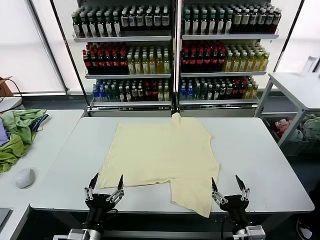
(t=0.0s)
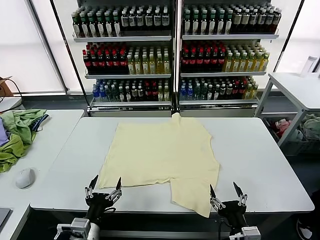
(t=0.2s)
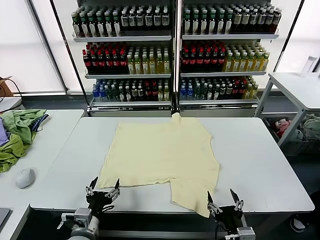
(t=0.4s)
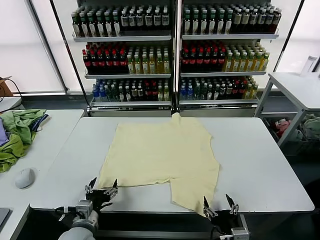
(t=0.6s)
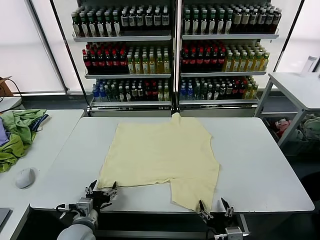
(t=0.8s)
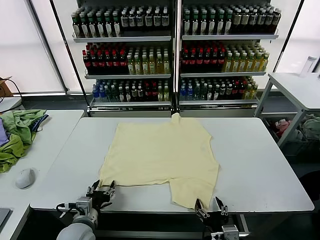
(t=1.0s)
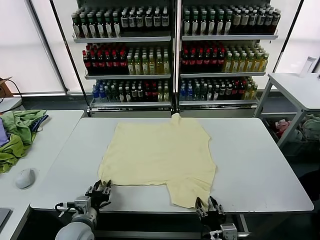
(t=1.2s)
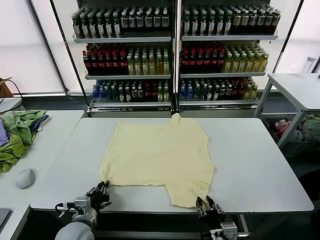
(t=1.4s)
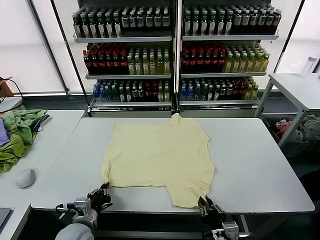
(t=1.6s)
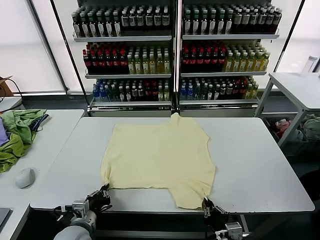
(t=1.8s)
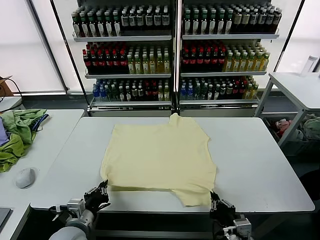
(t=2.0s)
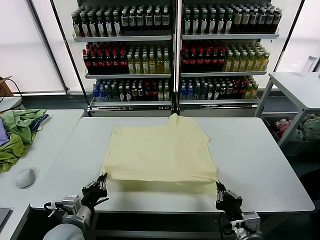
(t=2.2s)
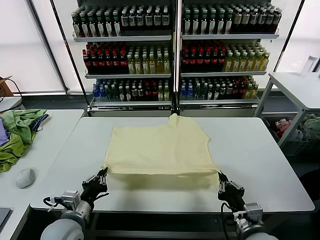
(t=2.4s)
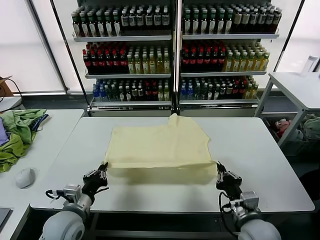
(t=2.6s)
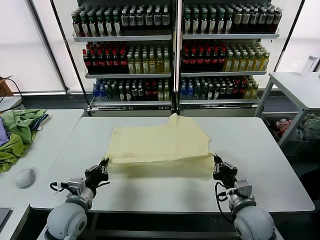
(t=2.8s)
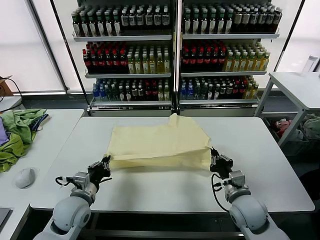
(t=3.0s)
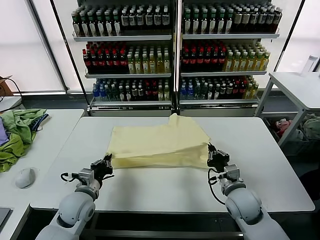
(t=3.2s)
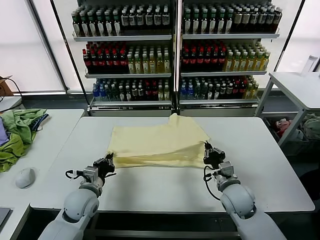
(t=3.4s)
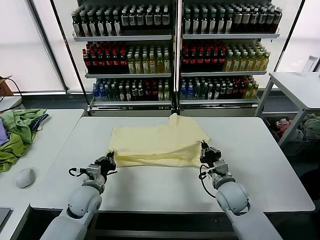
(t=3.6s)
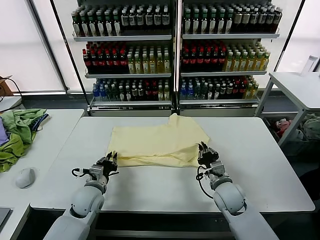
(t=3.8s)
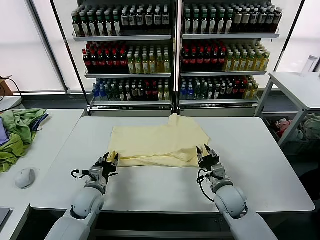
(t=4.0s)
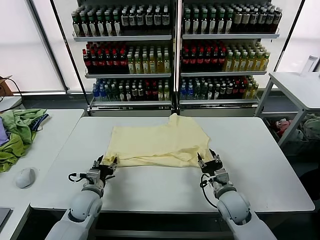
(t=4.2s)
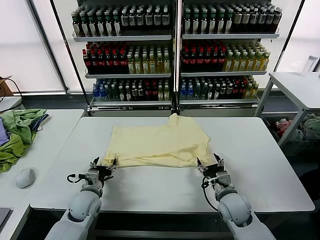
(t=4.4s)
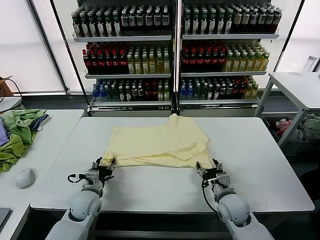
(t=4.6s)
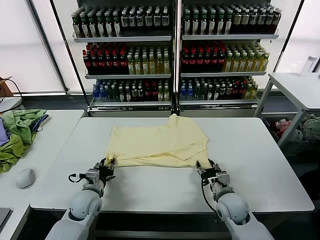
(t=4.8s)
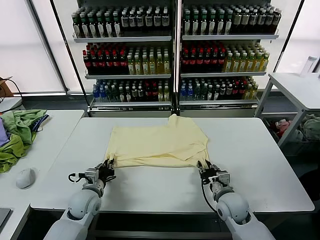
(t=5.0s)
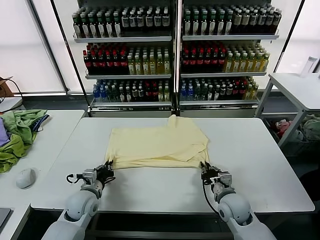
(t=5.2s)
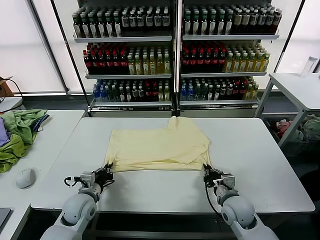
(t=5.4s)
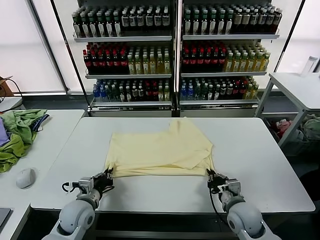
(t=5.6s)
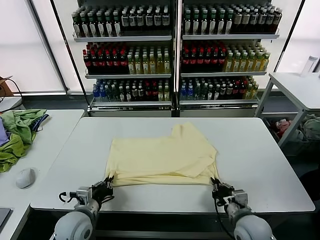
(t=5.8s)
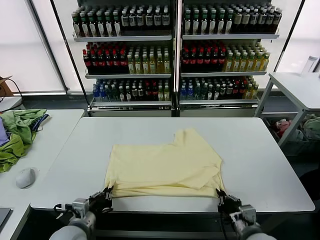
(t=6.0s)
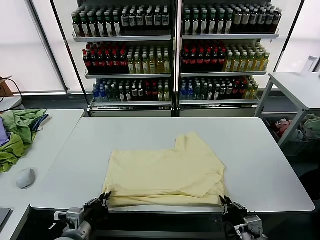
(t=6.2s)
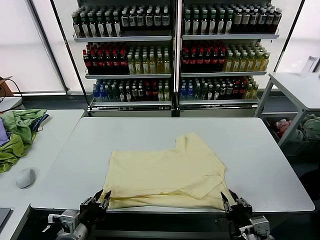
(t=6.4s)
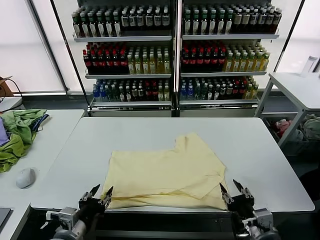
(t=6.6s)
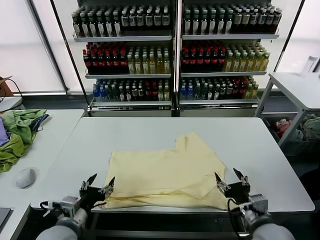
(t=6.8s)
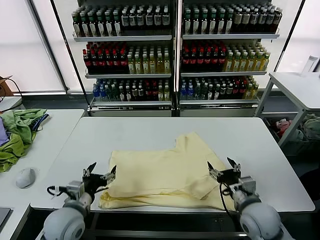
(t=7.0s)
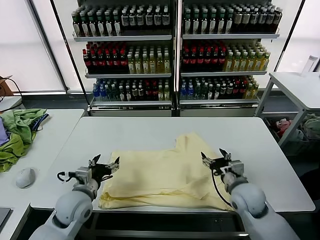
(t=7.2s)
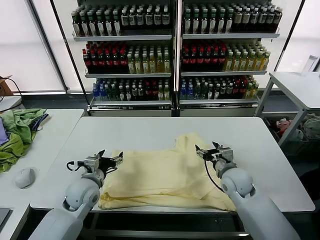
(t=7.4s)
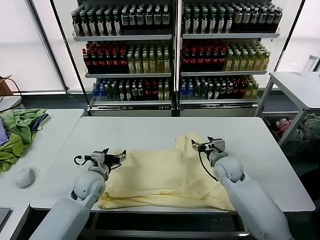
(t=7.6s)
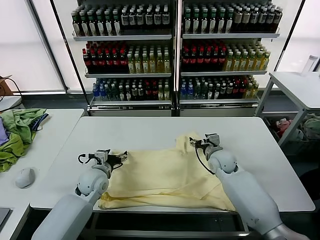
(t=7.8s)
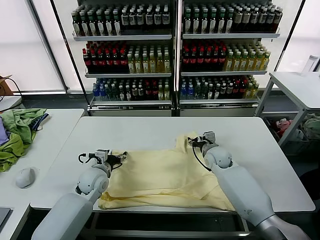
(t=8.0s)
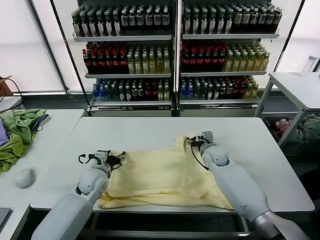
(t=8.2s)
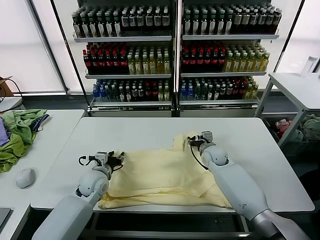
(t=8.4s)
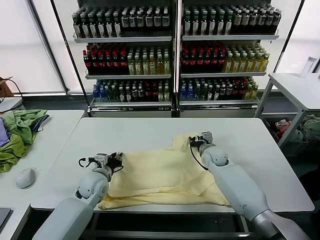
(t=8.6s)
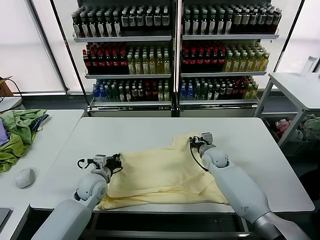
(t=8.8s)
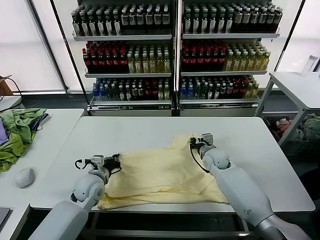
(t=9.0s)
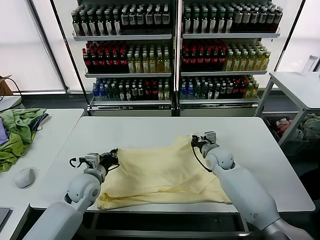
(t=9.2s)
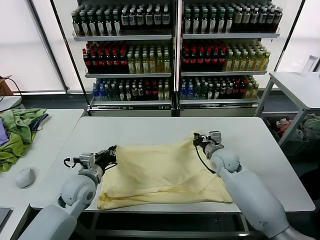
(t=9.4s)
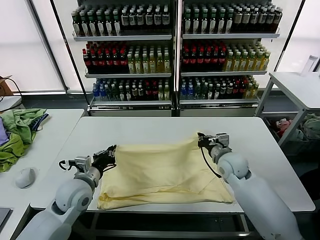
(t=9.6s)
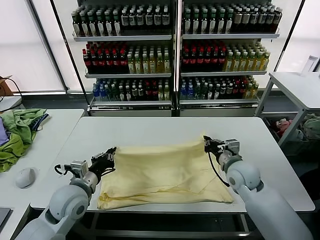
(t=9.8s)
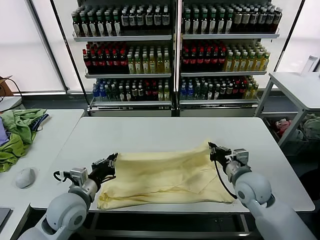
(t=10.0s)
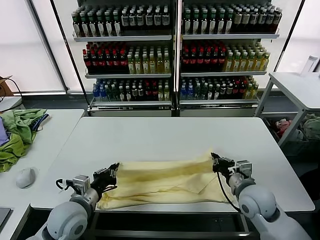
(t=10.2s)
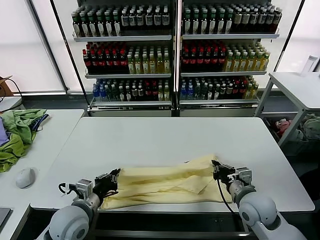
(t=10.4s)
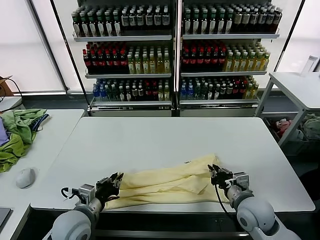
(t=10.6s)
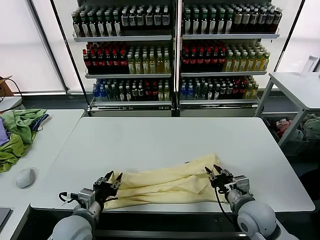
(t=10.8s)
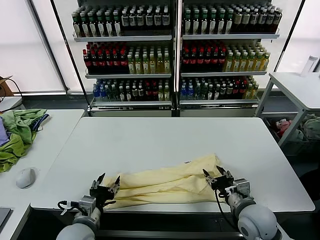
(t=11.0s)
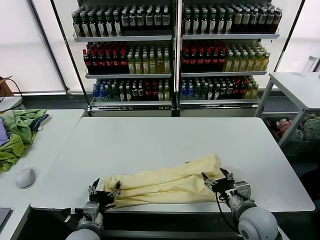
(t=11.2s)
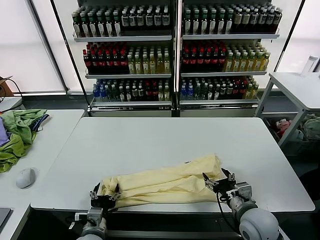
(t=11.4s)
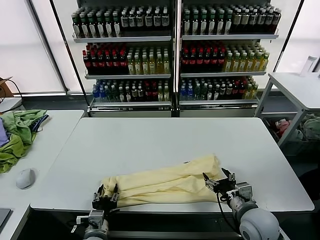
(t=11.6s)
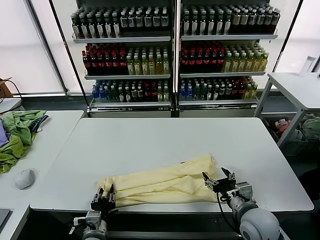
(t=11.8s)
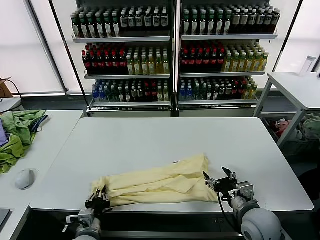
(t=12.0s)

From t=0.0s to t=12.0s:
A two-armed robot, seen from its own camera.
Task of the whole recording: fold and organize the clothes.
Step, from t=0.0s to t=1.8s: use both grippers simultaneously to clamp the lower edge of the clothing fabric.
Step, from t=2.0s to t=4.0s: use both grippers to drag the lower edge of the fabric forward and fold it over the upper edge.
Step, from t=4.2s to t=6.4s: Drag the clothes downward with both gripper.
Step, from t=6.6s to t=9.0s: use both grippers simultaneously to clamp the upper edge of the clothing fabric.
Step, from t=9.2s to t=10.8s: use both grippers to drag the upper edge of the fabric backward and fold it over the lower edge.
Step, from t=11.2s to t=12.0s: use the left gripper to clamp the left edge of the fabric.
From t=1.6s to t=3.0s: The left gripper travels forward by approximately 10 cm. The right gripper shifts about 15 cm forward.
From t=3.0s to t=4.4s: The grippers both shift downward by some 5 cm. The left gripper opens its fingers. Meanwhile the right gripper opens.
From t=4.4s to t=6.0s: Both grippers move backward, roughly 15 cm. The left gripper closes its fingers; the right gripper closes up.
From t=6.0s to t=7.6s: The right gripper shifts about 30 cm forward, and opens its fingers. Meanwhile the left gripper goes some 20 cm forward, and opens its fingers.
From t=7.6s to t=9.0s: The left gripper closes, while the right gripper closes its fingers.
From t=9.0s to t=10.4s: The left gripper travels backward by some 15 cm; the right gripper goes roughly 20 cm backward.
From t=10.4s to t=12.0s: The left gripper heads downward and backward, covering roughly 10 cm, and opens, then closes again. The right gripper opens its fingers.

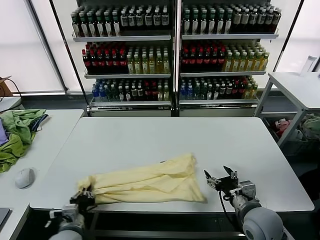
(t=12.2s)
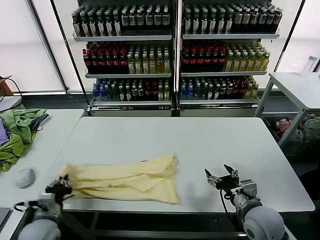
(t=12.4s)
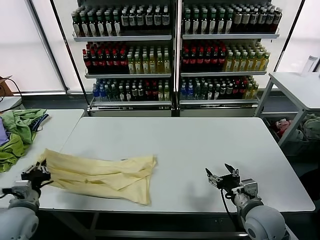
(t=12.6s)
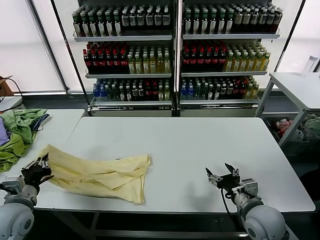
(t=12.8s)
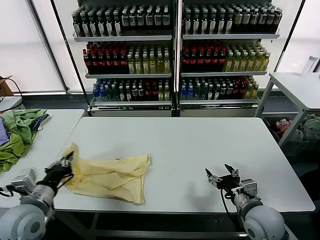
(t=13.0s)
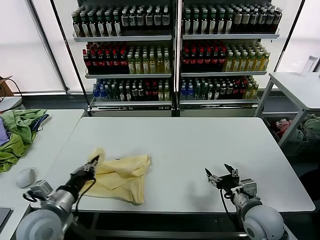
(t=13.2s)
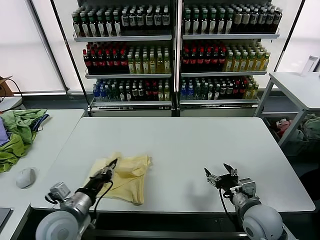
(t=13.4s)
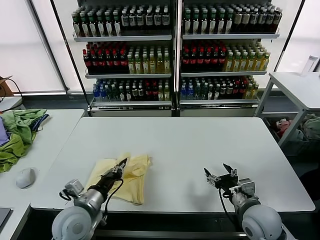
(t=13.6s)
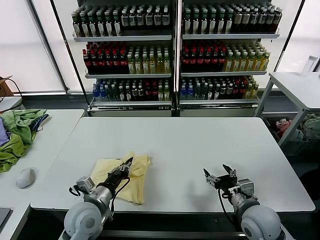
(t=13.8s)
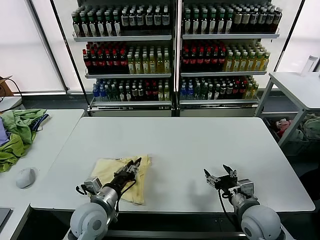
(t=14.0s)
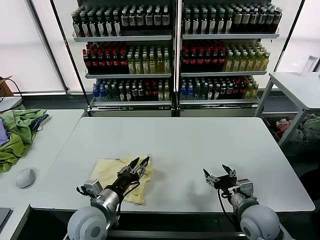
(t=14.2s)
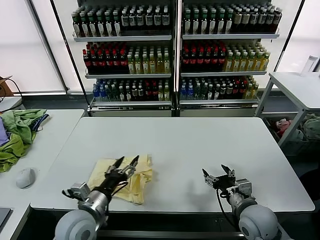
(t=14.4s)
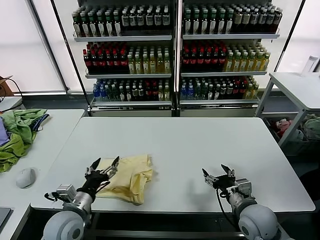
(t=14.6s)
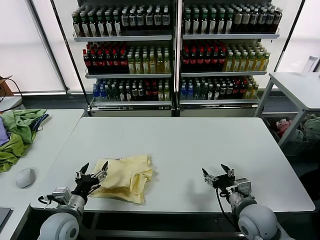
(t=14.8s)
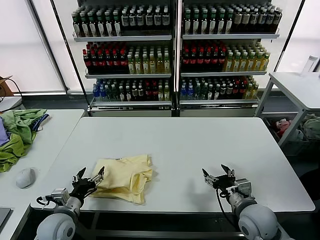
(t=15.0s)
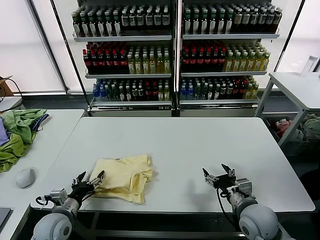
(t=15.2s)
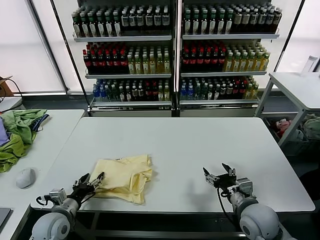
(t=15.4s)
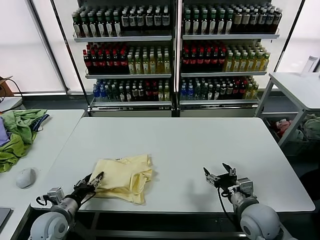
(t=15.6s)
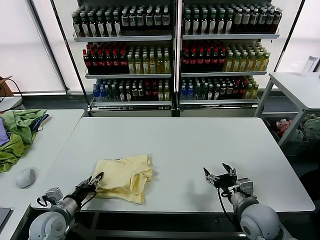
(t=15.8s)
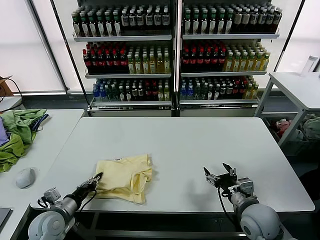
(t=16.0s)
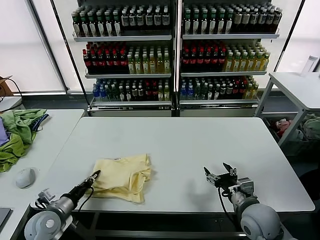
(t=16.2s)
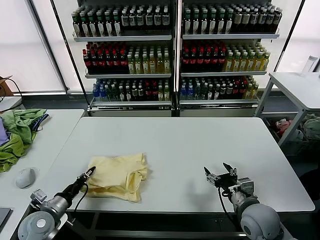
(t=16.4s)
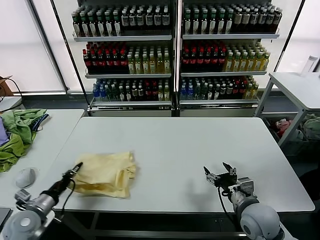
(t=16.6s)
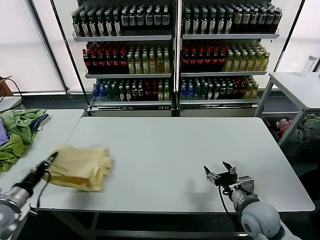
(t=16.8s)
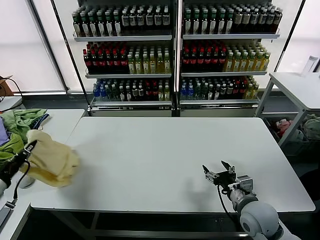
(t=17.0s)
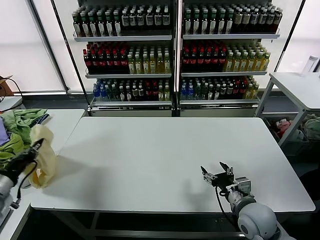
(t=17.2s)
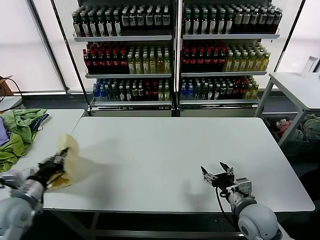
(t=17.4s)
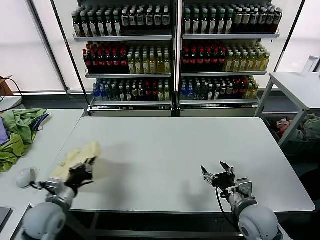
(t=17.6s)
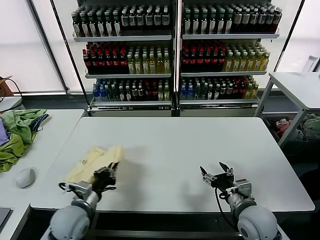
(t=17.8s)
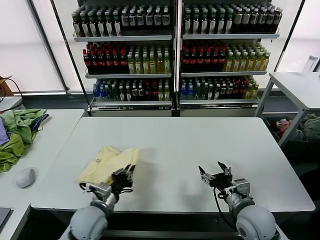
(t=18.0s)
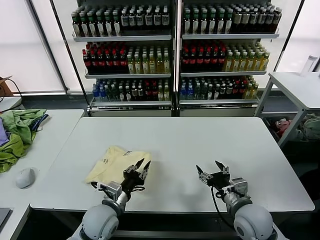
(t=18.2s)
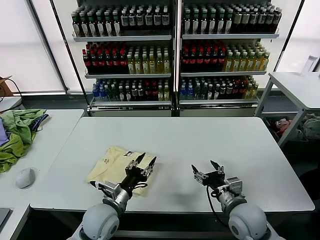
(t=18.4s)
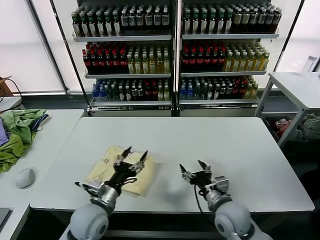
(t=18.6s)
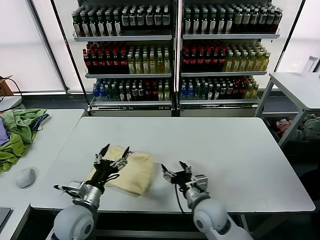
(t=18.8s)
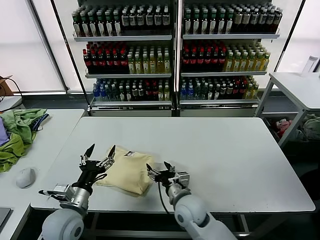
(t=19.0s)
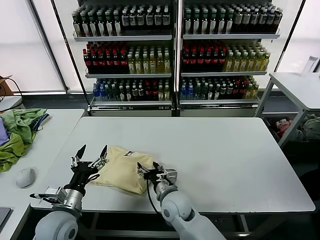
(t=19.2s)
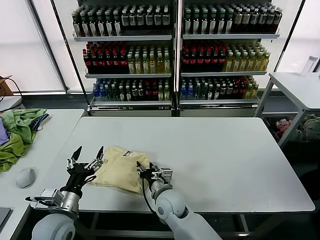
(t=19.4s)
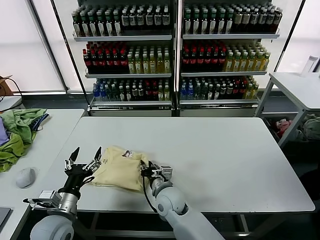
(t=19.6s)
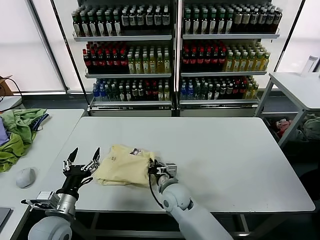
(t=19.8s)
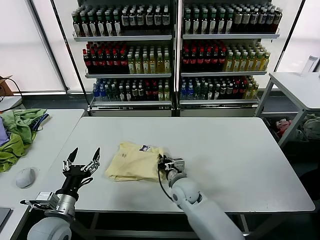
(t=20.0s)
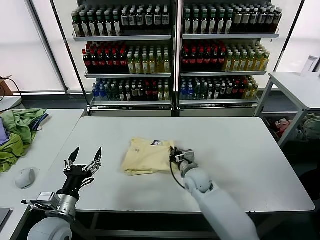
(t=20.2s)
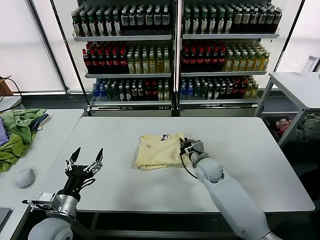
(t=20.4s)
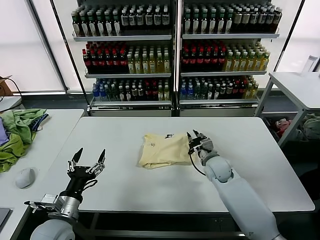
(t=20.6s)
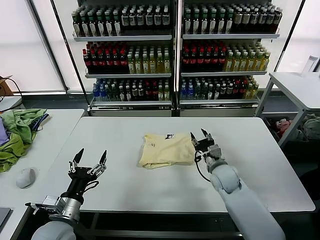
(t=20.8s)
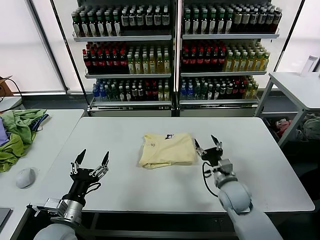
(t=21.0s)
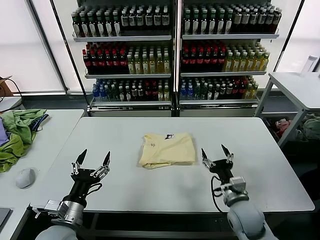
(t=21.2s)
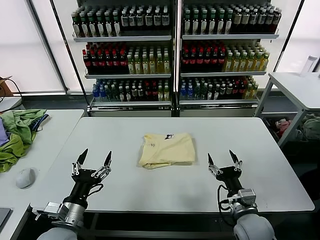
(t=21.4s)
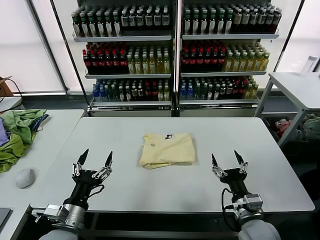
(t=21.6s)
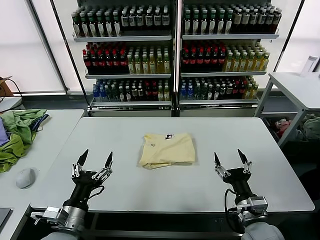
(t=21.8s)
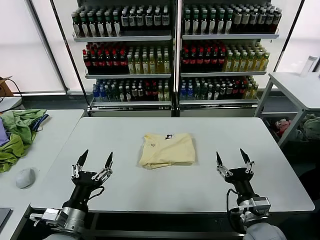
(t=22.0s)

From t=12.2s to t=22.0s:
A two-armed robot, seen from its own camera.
Task of the whole recording: fold and organize the clothes.
Step, from t=12.2s to t=14.2s: use the left gripper to drag the left edge of the fabric to the left and folds it over the right edge.
Step, from t=14.4s to t=18.2s: Flip the folded clothes over with left gripper.
Step, from t=18.4s to t=20.6s: Drag the clothes to the center of the table.
From t=12.2s to t=13.6s: The left gripper is displaced upward by some 10 cm, and reaches about 10 cm to the left, then returns.
From t=13.6s to t=15.0s: The left gripper is displaced to the left and downward by some 10 cm, and opens.
From t=15.0s to t=16.4s: The left gripper heads to the left, covering approximately 5 cm, and closes its fingers.
From t=16.4s to t=17.8s: The left gripper goes some 10 cm to the right.
From t=17.8s to t=19.2s: The left gripper travels to the right and back again, roughly 10 cm each way, and opens up. The right gripper goes about 20 cm to the left.
From t=19.2s to t=20.6s: The right gripper goes about 20 cm to the right and forward, and closes its fingers.
From t=20.6s to t=22.0s: The right gripper heads backward, covering about 25 cm, and opens. Meanwhile the left gripper shifts by roughly 5 cm.
